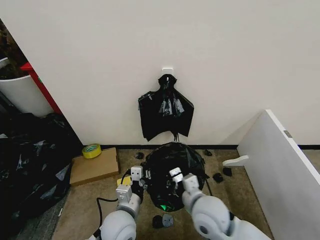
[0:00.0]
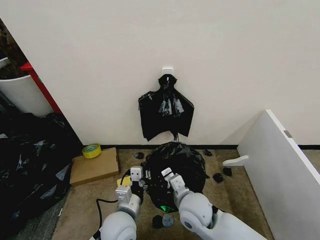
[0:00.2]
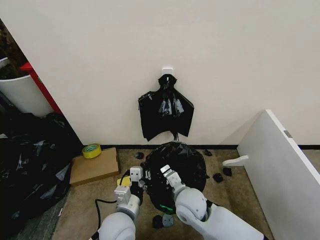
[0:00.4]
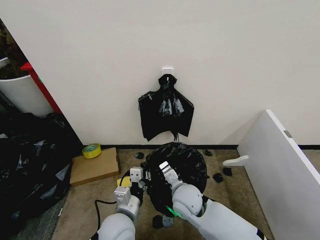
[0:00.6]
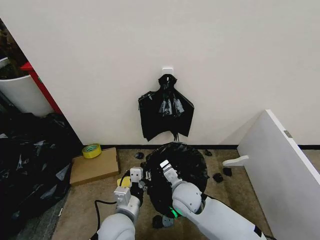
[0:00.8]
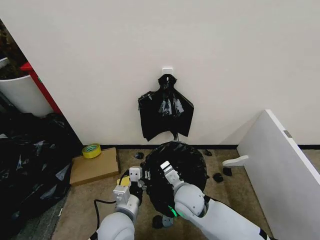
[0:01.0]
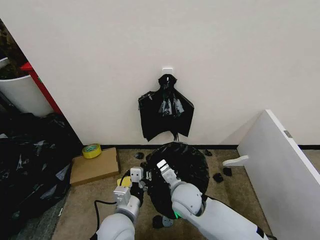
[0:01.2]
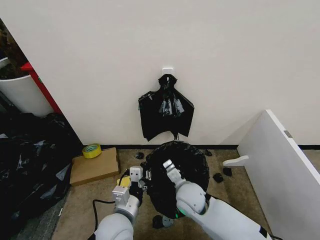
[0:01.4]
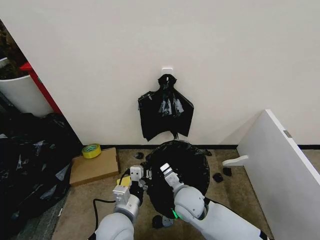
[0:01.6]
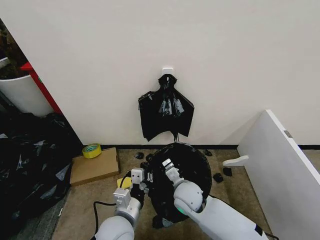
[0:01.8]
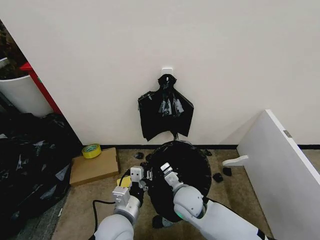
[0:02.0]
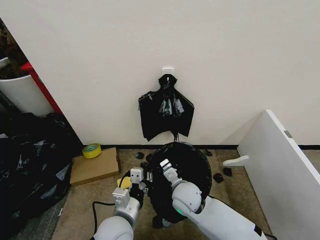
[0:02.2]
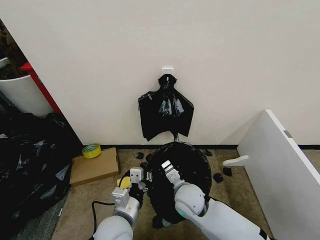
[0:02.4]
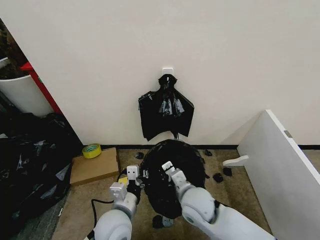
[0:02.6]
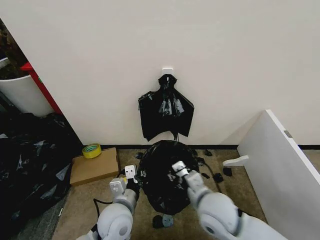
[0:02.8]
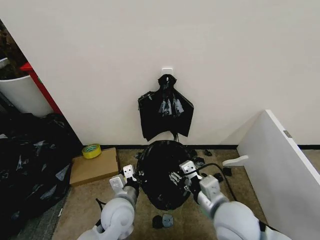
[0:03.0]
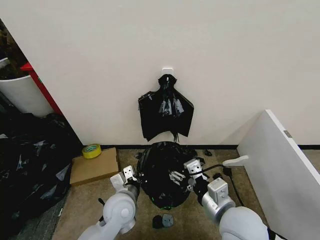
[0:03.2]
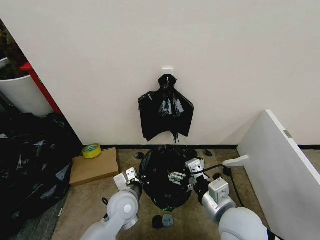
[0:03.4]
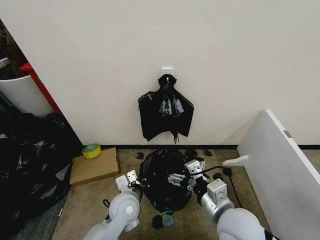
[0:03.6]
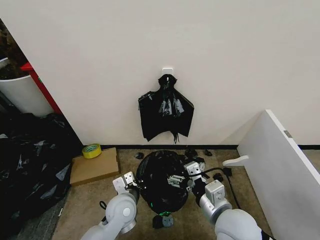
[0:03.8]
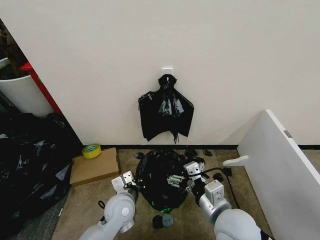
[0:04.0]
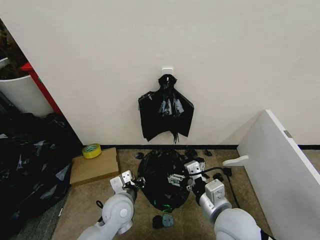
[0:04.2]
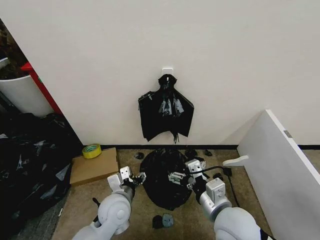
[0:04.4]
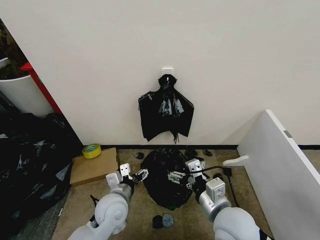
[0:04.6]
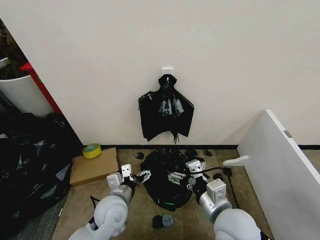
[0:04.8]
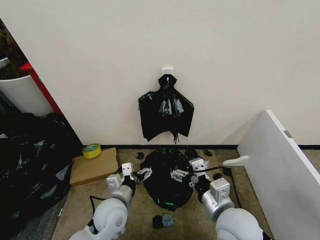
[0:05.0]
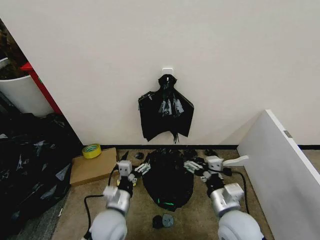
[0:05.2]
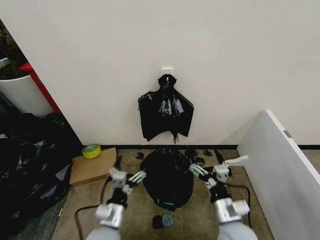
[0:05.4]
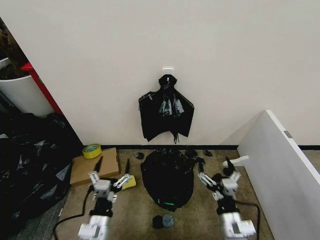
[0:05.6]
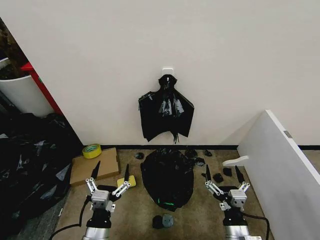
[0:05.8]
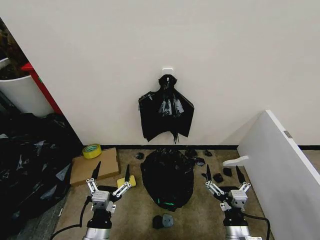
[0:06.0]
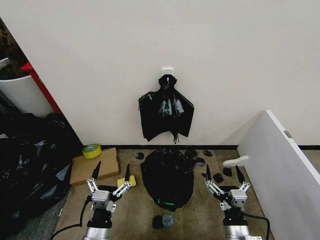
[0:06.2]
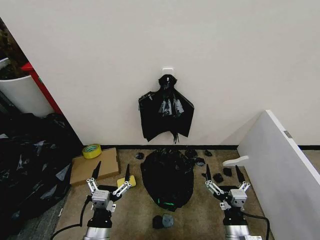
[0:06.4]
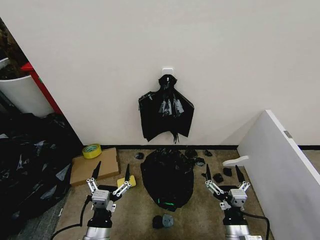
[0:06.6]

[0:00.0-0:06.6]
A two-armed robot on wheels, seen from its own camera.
Task of the whole recording: Place the garbage bag over the trash bin.
0:00.0 to 0:01.6: The right gripper is displaced downward by about 5 cm.
0:01.6 to 0:03.2: The right gripper is displaced upward, backward and to the right by roughly 20 cm, and opens its fingers, while the left gripper is displaced forward by approximately 5 cm.
0:03.2 to 0:05.0: The left gripper opens up.
0:05.0 to 0:06.6: The left gripper moves backward, approximately 15 cm. Meanwhile the right gripper goes about 15 cm downward and backward.
